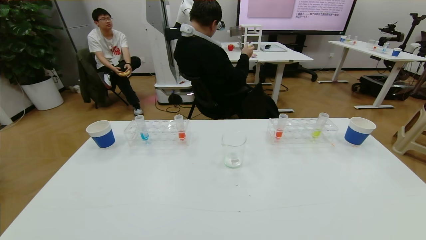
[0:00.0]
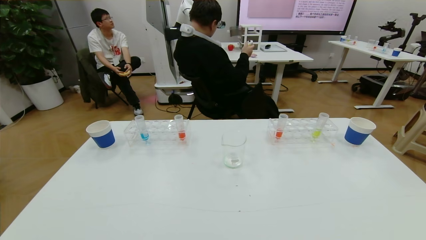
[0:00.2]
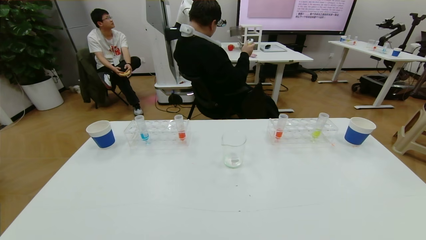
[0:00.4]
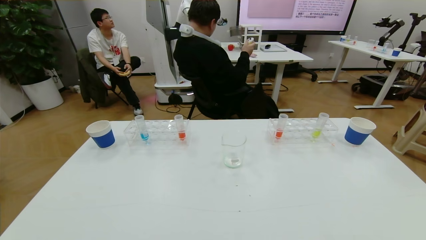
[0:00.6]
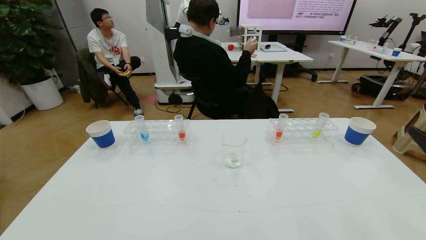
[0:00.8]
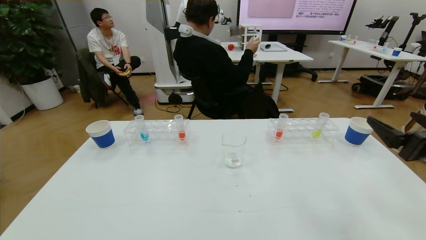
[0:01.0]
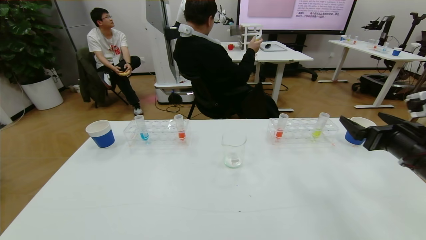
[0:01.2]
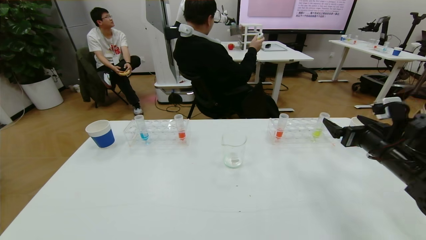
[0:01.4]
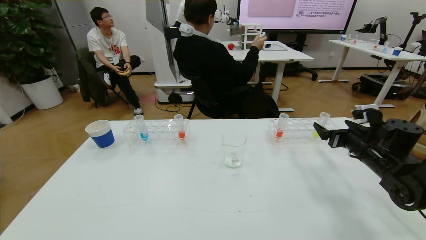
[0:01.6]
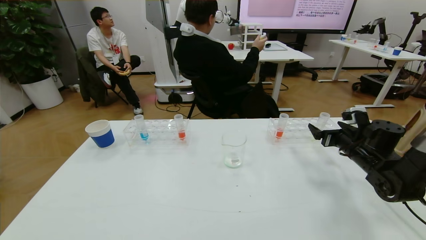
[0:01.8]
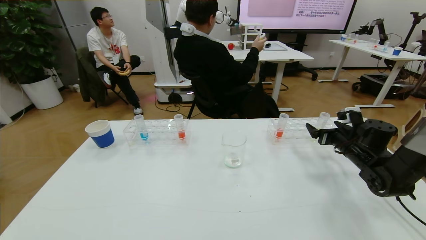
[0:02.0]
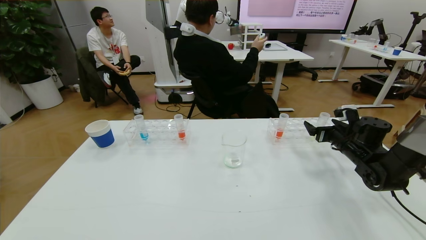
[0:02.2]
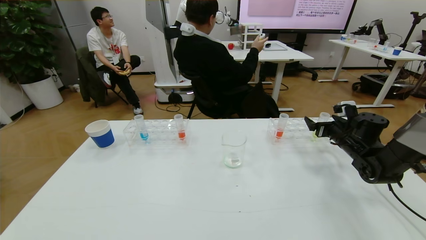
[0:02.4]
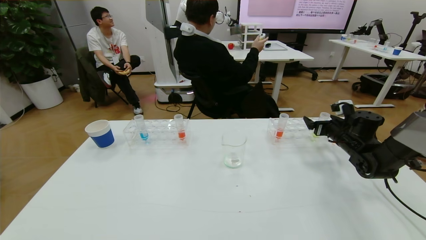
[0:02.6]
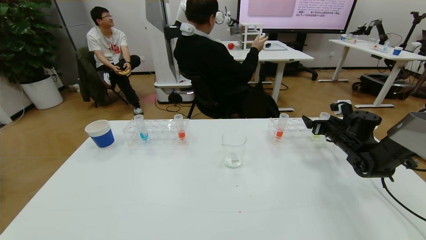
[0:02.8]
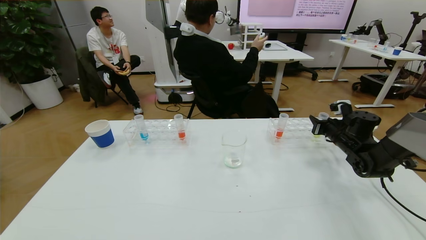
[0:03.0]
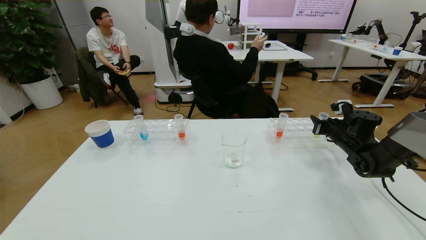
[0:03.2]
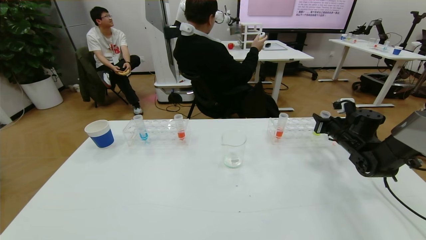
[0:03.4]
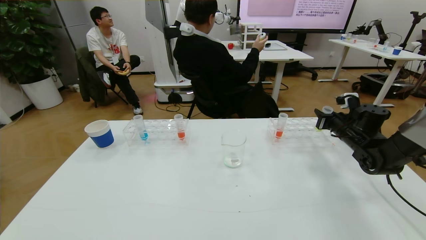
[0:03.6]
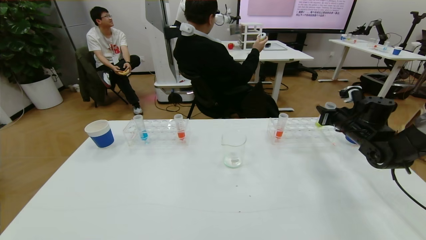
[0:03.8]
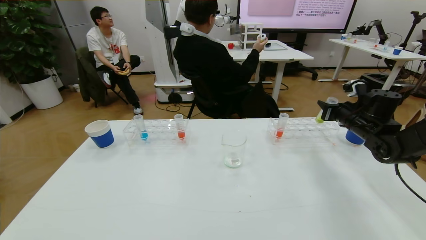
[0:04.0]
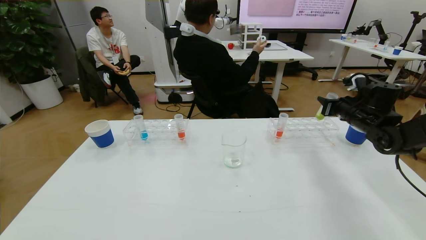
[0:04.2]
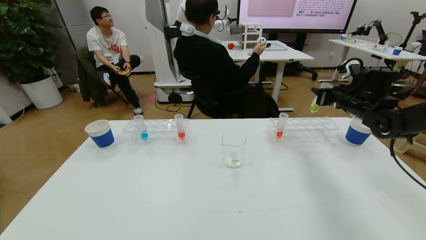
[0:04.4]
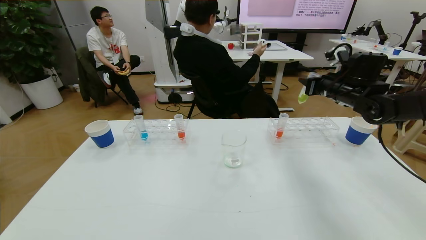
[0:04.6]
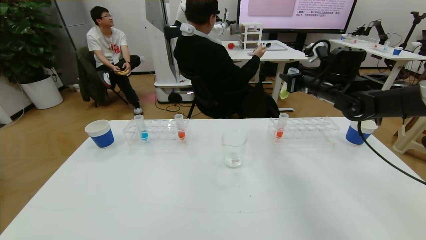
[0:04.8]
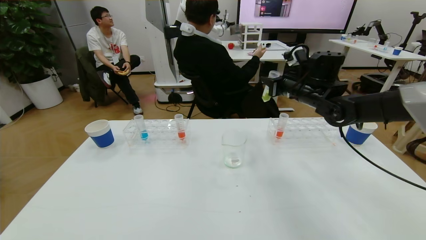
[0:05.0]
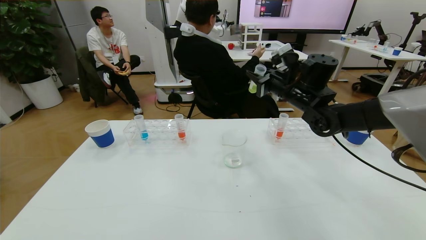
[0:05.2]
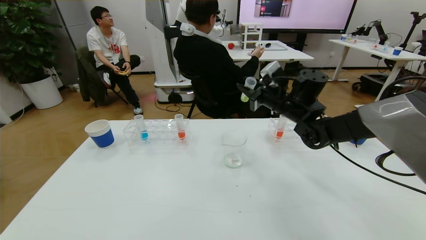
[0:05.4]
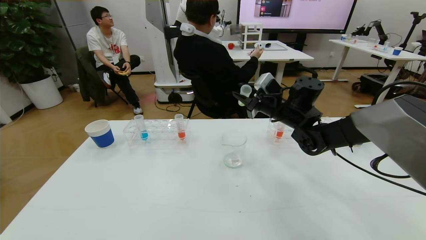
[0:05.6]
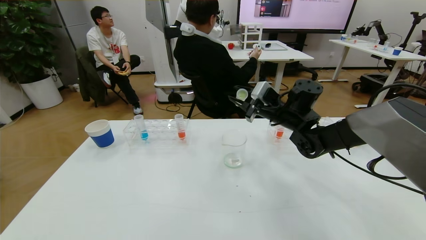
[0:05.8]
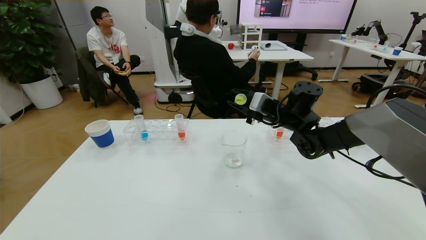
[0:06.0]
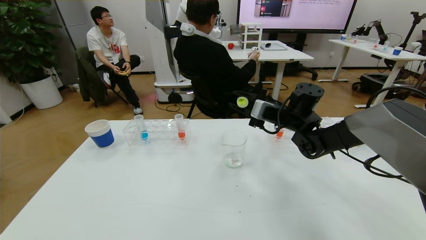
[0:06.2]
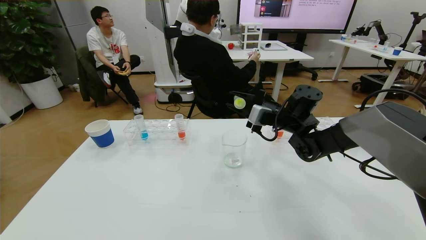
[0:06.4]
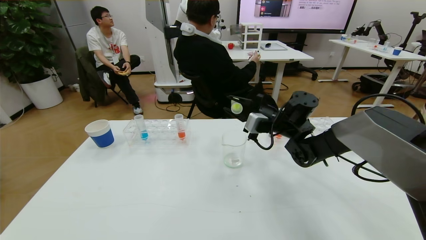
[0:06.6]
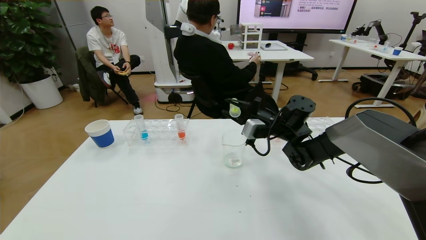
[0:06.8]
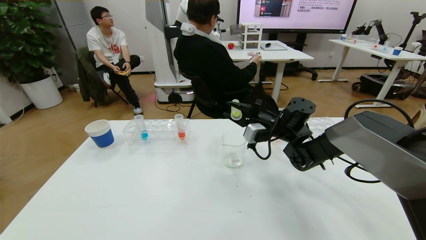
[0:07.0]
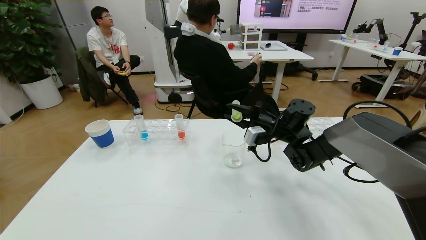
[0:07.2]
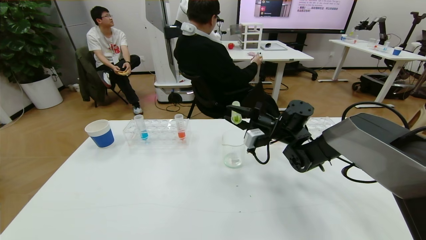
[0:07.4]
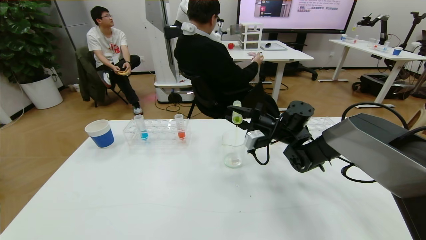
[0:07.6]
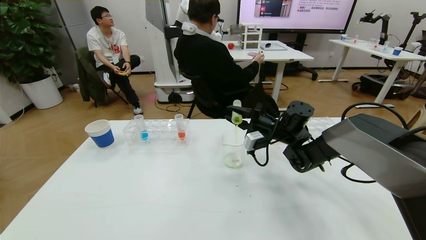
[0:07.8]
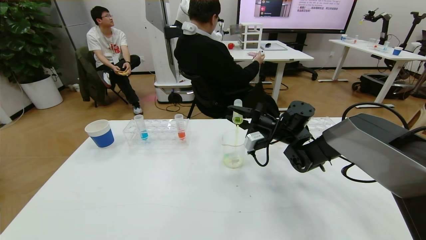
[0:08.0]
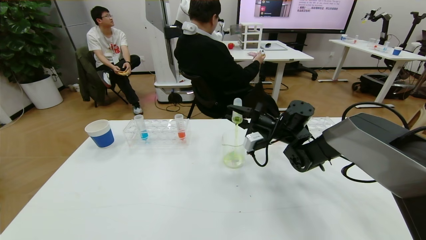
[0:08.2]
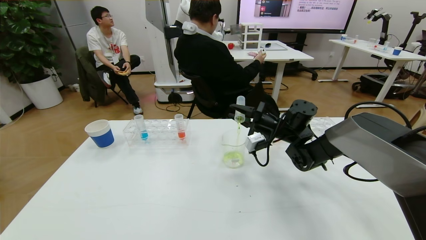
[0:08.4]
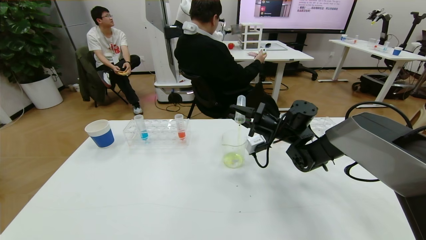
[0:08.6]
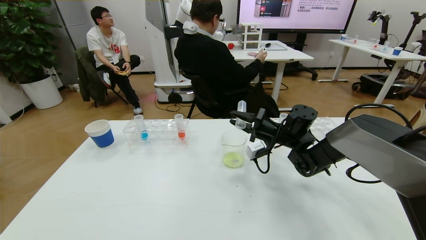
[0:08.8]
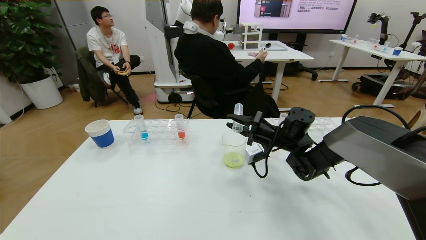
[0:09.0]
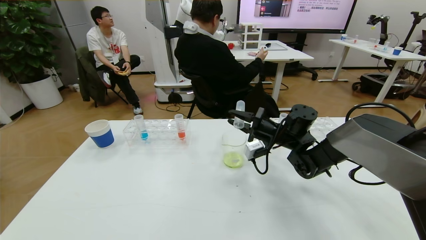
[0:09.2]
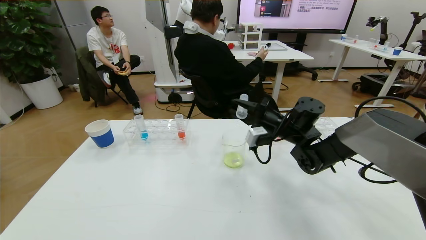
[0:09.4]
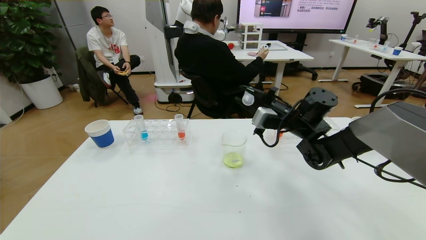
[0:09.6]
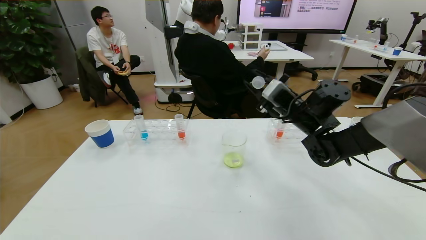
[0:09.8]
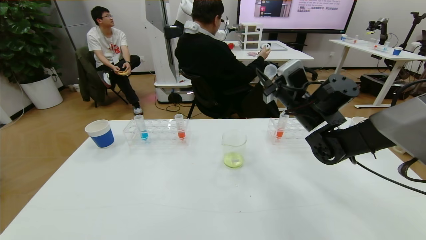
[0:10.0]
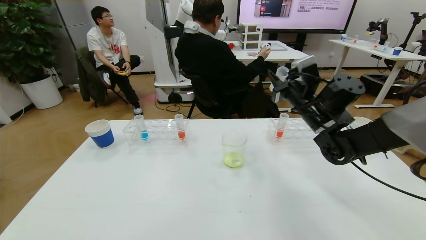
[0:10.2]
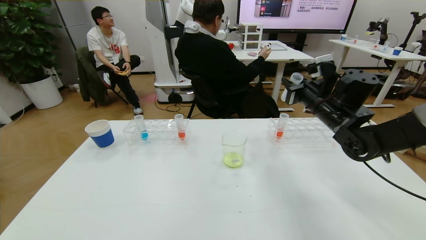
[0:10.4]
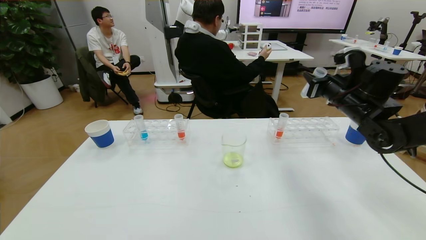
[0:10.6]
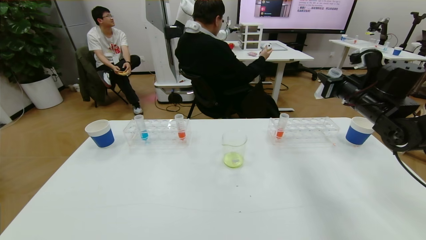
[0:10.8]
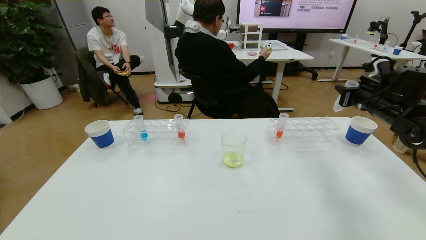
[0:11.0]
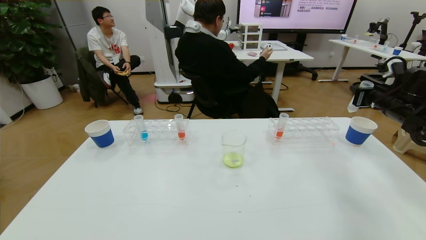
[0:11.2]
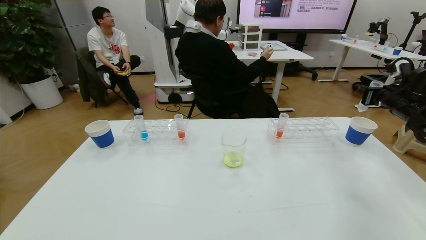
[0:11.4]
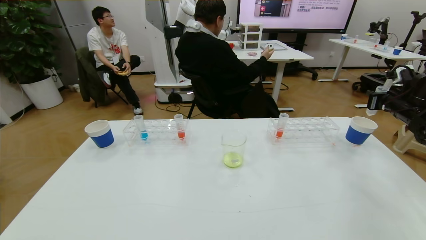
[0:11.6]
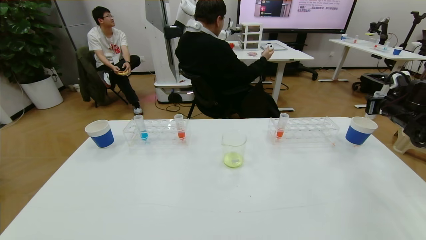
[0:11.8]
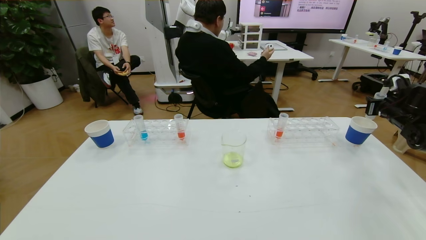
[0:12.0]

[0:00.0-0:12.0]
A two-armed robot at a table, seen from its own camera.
Task of the whole recording: pick up the test tube with yellow pigment and the test tube with blue pigment by grippers and pour them into the beaker.
0:00.0 to 0:01.6: The right gripper goes roughly 35 cm forward.
0:01.6 to 0:03.0: The right gripper moves forward, about 10 cm, and closes.
0:03.0 to 0:04.4: The right gripper shifts approximately 10 cm upward.
0:04.4 to 0:06.0: The right gripper goes some 20 cm to the left.
0:06.0 to 0:07.6: The right gripper goes about 5 cm downward.
0:07.6 to 0:09.0: The grippers move only a little.
0:09.0 to 0:10.4: The right gripper goes roughly 15 cm upward and to the right.
0:10.4 to 0:12.0: The right gripper is displaced to the right by approximately 25 cm.

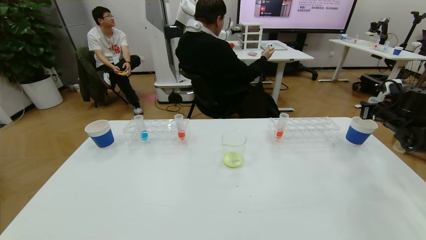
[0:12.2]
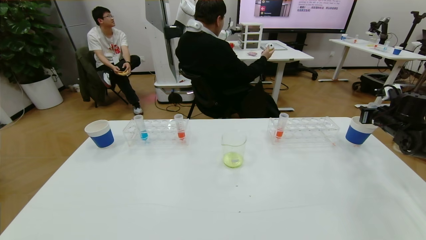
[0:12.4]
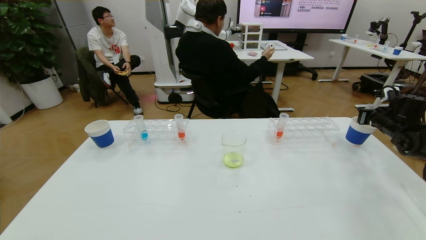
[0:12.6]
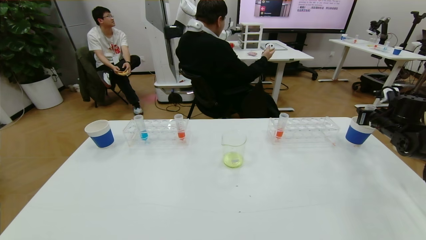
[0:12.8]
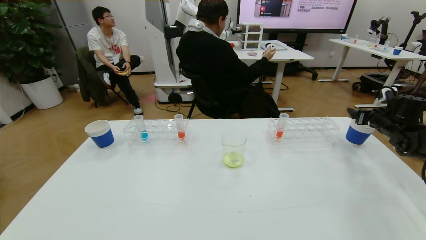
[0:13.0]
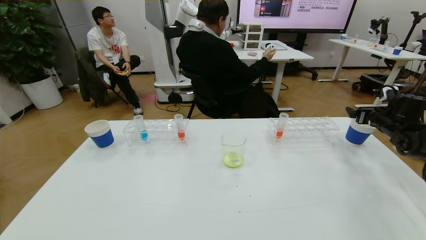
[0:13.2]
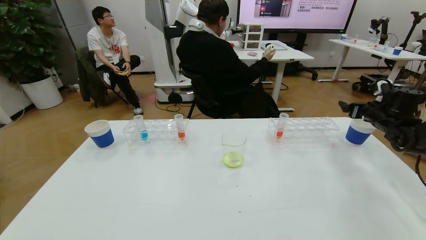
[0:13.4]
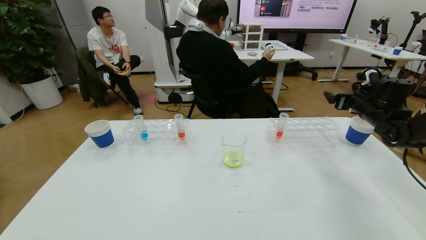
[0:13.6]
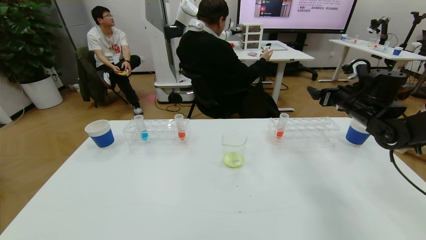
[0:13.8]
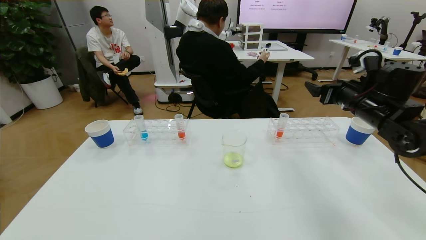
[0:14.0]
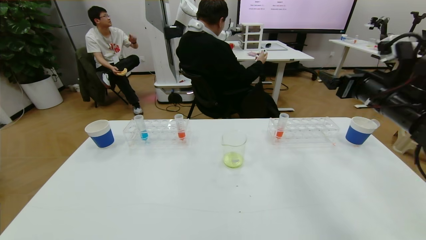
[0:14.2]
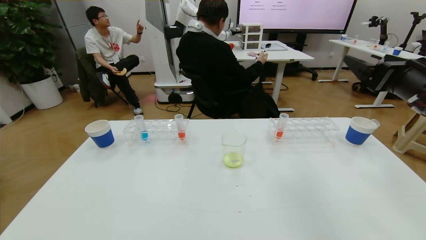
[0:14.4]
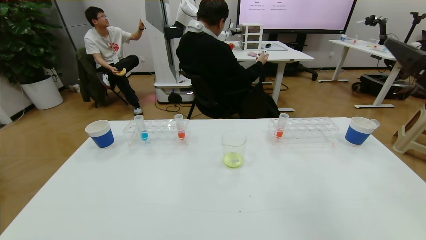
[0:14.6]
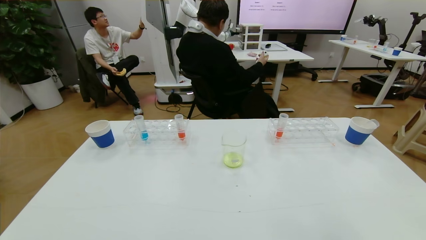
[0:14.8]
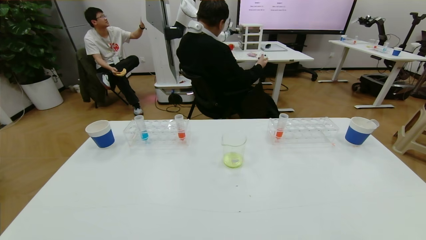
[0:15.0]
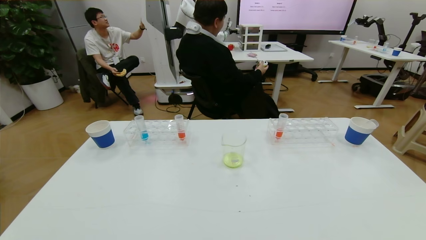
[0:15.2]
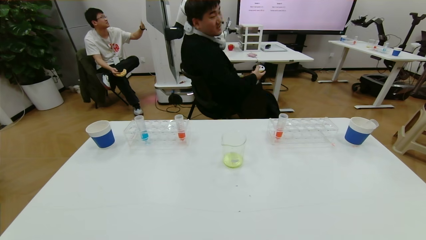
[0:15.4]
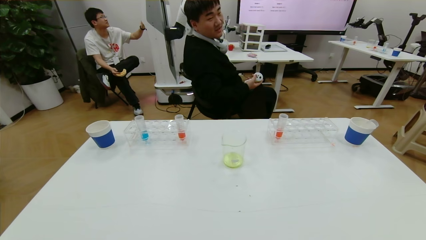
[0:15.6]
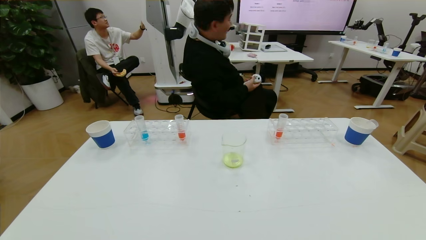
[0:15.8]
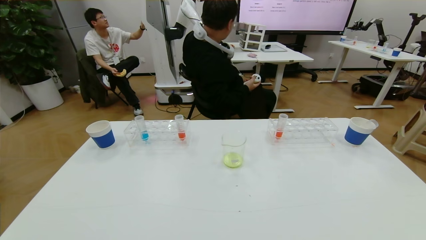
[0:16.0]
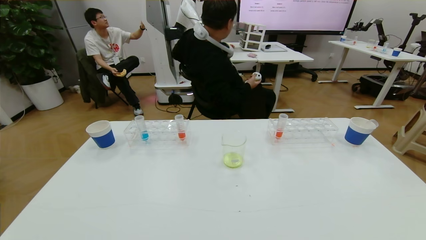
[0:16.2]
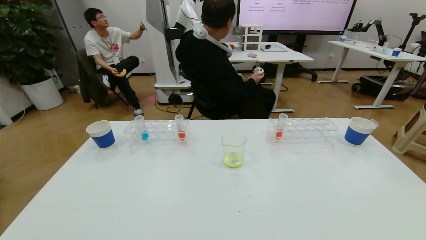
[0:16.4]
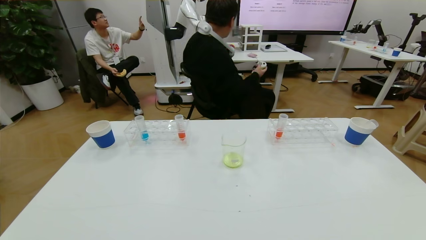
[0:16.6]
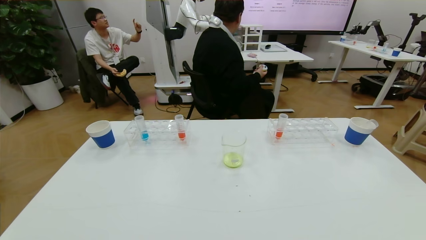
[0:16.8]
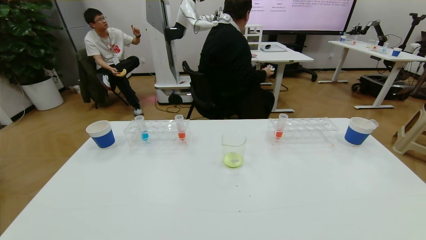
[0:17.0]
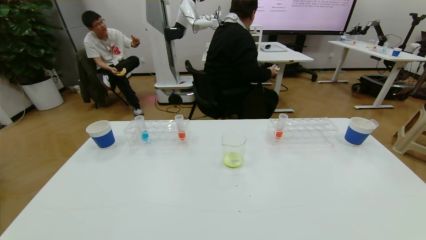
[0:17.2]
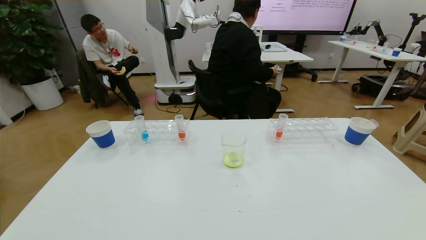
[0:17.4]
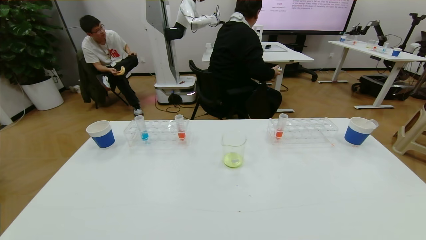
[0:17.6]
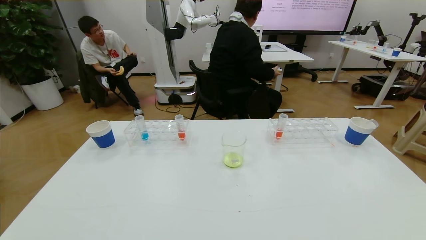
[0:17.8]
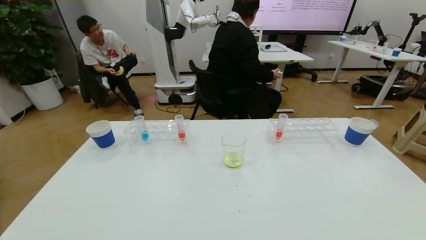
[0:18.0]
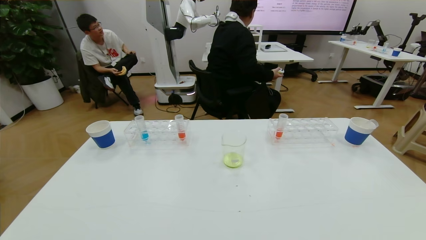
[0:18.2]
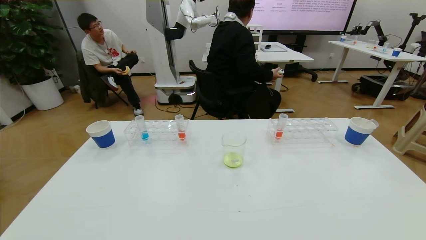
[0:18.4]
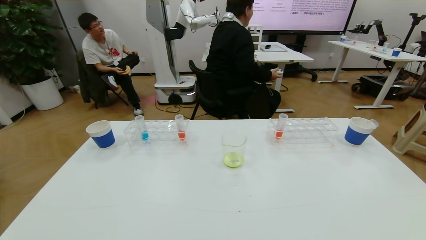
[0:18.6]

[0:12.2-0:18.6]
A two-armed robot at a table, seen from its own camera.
Task of the whole recording: pick up the test tube with yellow pigment and the test tube with blue pigment by grippers and pour them into the beaker.
Step, 0:12.2 to 0:16.6: Pour the yellow reagent into the graduated cylinder and place the test tube into the paper cup.
0:12.2 to 0:13.8: The right gripper heads to the left, covering about 15 cm, and opens up.
0:13.8 to 0:15.4: The right gripper moves backward, about 40 cm.
0:15.4 to 0:17.0: The right gripper travels downward by approximately 20 cm.
0:17.0 to 0:18.6: The left gripper heads upward, covering approximately 10 cm.
